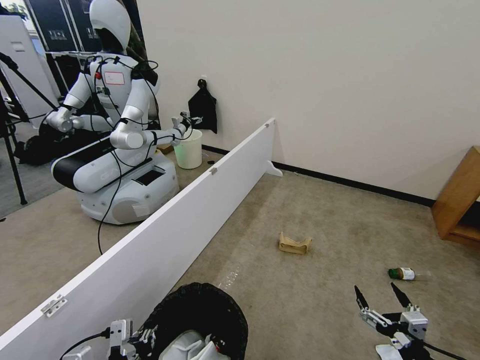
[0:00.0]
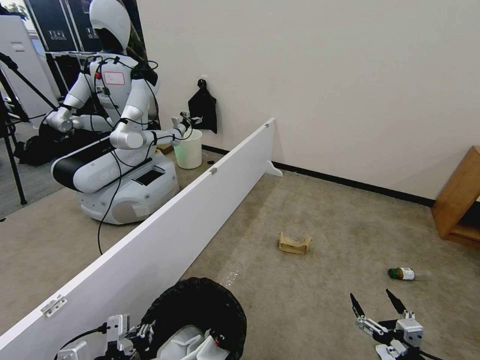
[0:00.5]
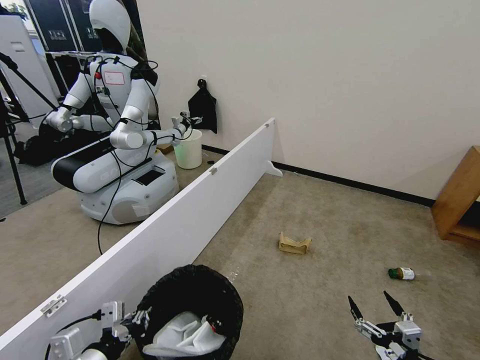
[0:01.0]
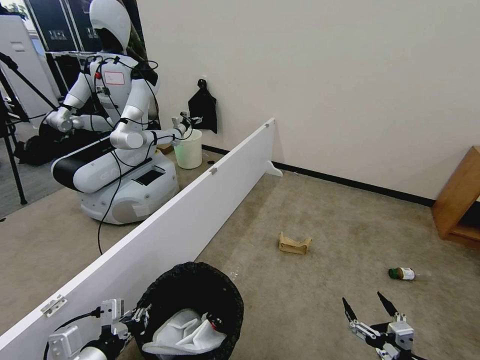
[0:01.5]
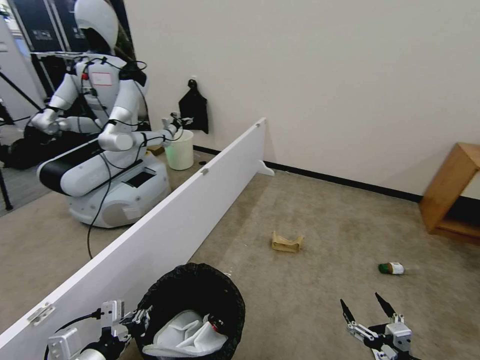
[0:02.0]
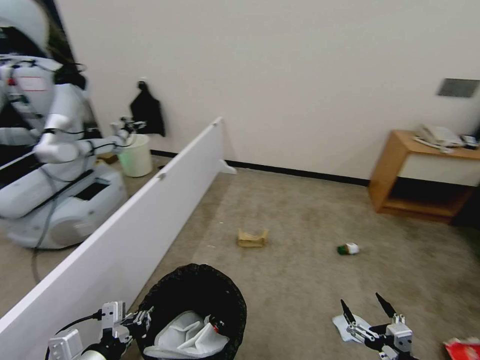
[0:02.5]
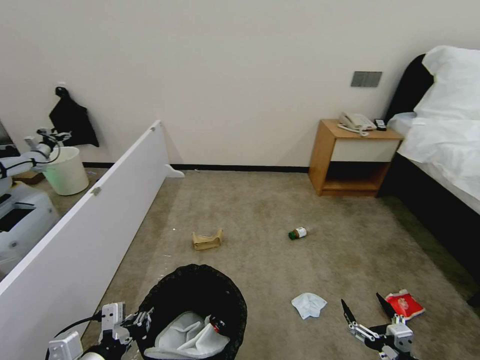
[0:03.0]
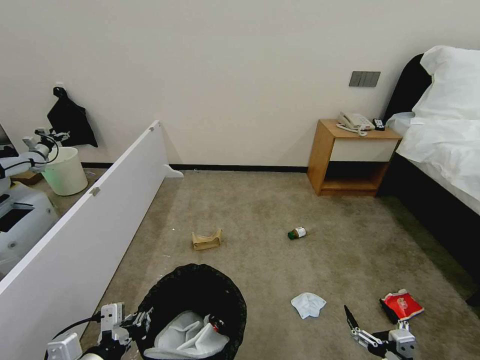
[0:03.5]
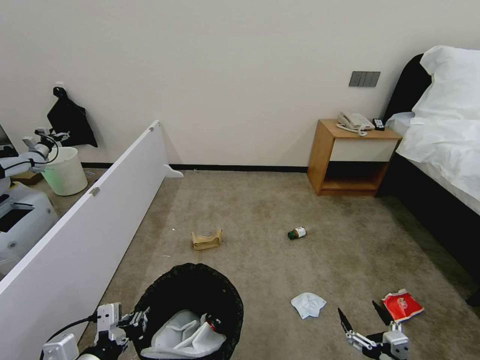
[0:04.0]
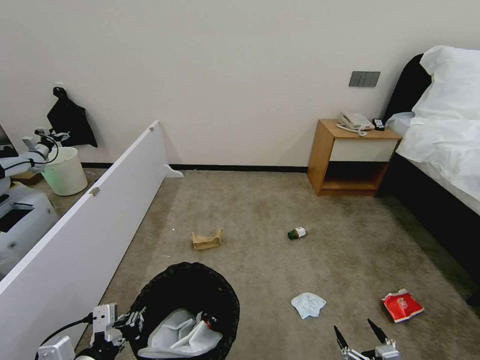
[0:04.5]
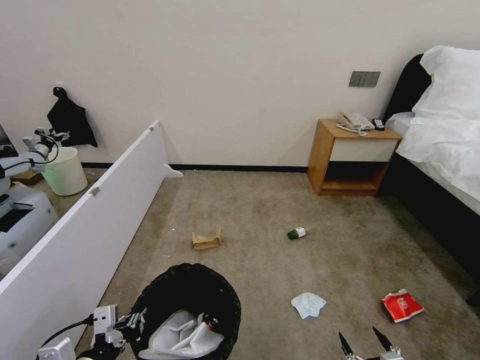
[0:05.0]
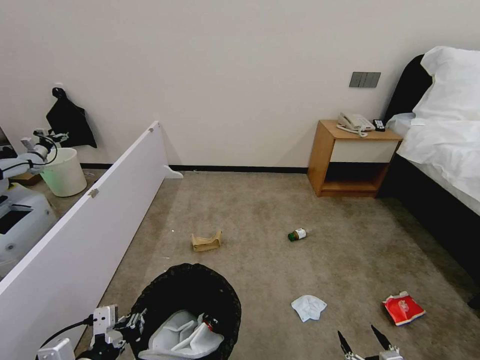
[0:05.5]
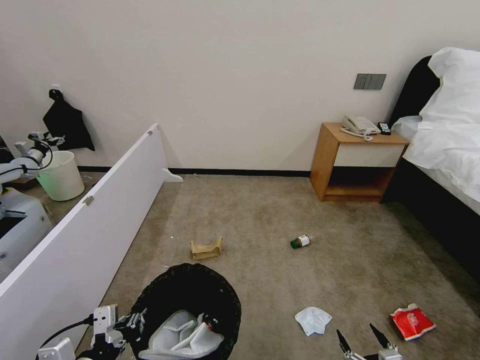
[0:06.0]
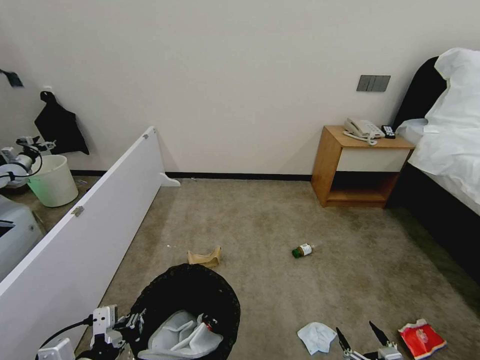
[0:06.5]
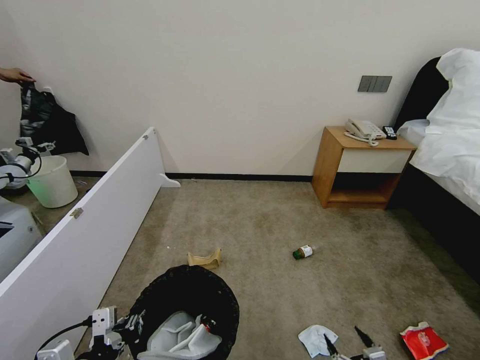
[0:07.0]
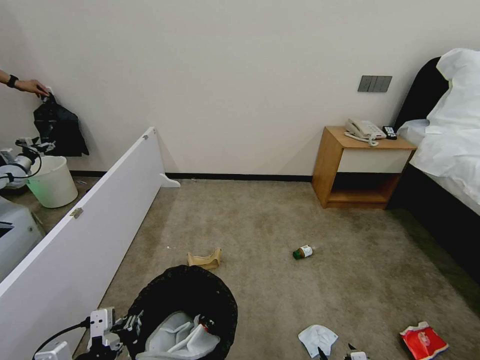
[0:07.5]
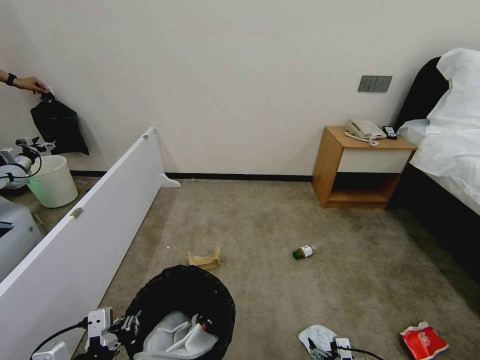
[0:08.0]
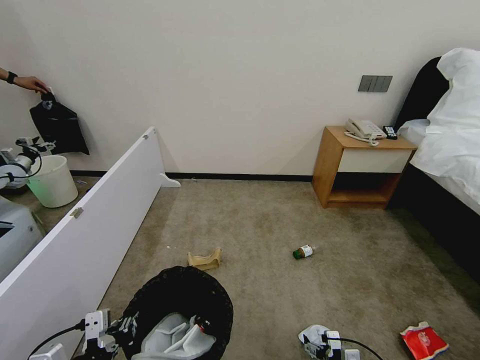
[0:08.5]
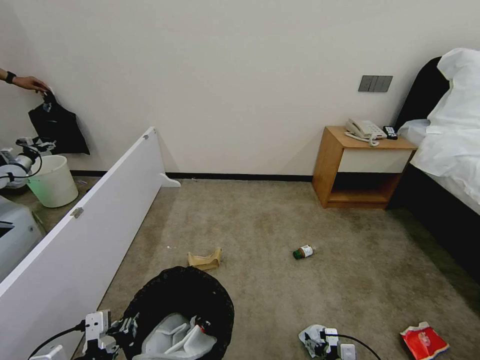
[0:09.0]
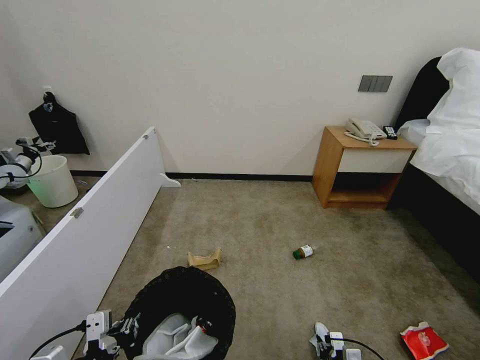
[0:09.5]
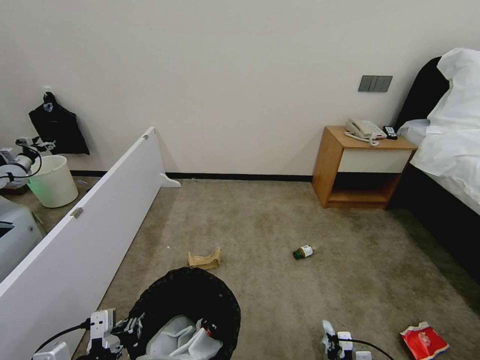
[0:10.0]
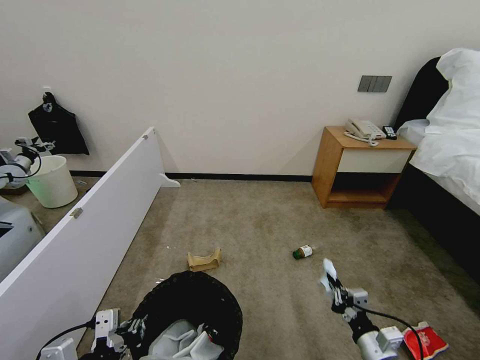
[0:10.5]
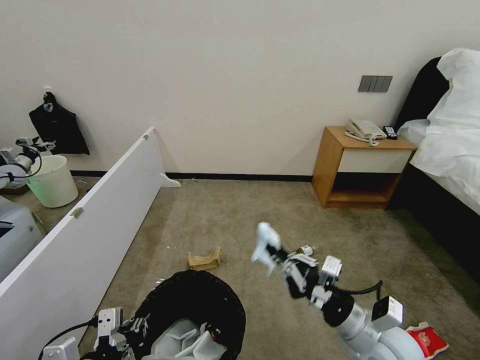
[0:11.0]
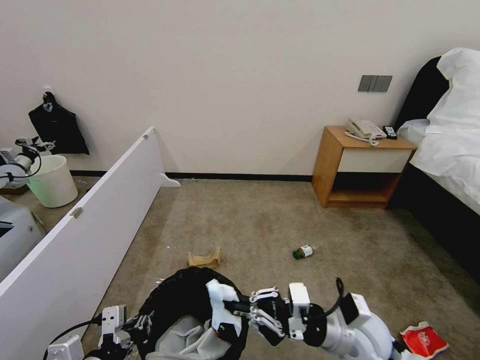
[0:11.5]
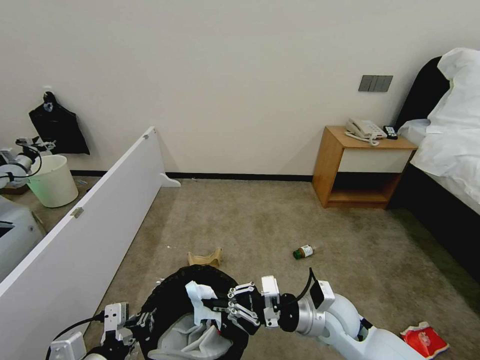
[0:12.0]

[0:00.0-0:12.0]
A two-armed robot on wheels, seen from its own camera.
Task of the whole recording: Pick up the trash bin, then pick up the garbage from the floor and place it into the trash bin.
0:04.0 to 0:06.0: There are only small adjustments of the grippers.
0:06.0 to 0:08.0: The right gripper moves forward, downward and to the left, about 10 cm.
0:08.0 to 0:10.0: The right gripper closes.
0:10.0 to 0:12.0: The right gripper is displaced upward, to the left and forward by roughly 30 cm.

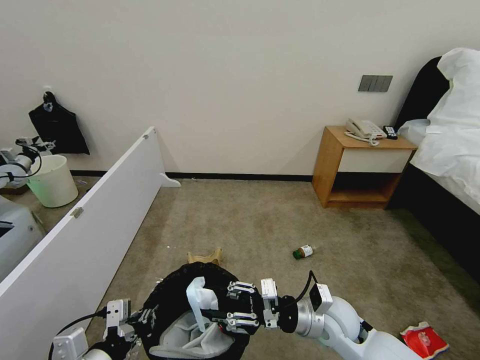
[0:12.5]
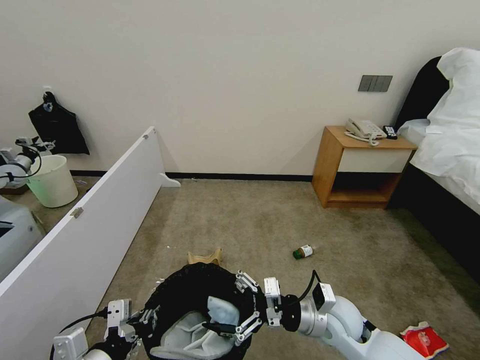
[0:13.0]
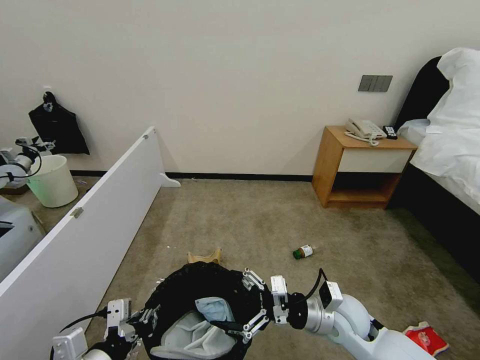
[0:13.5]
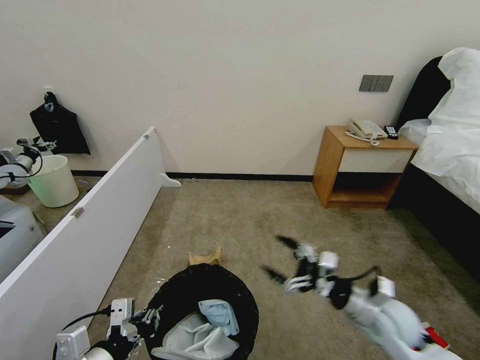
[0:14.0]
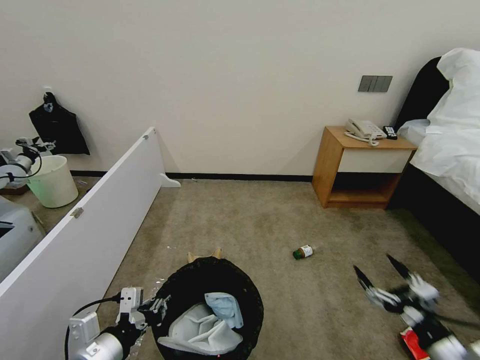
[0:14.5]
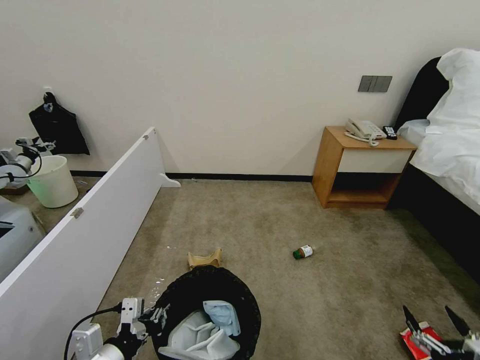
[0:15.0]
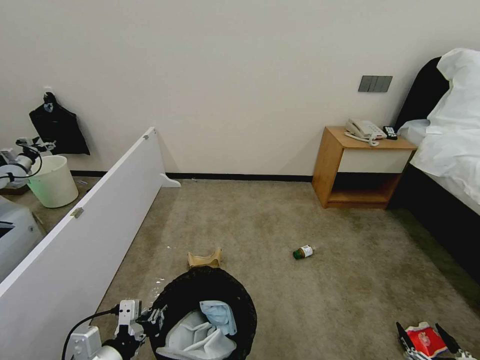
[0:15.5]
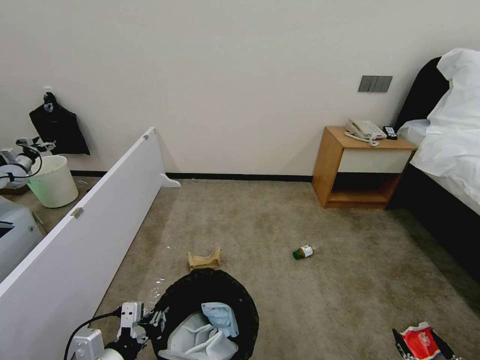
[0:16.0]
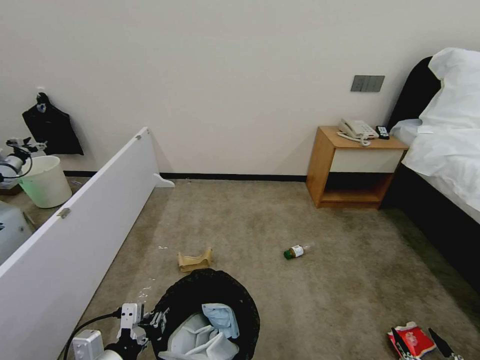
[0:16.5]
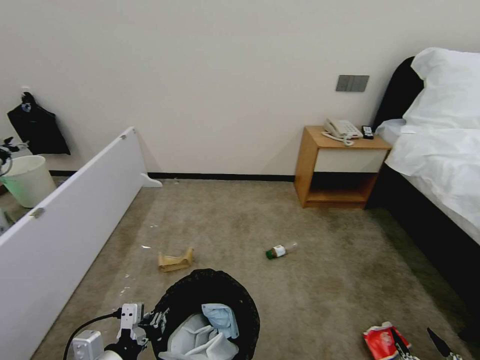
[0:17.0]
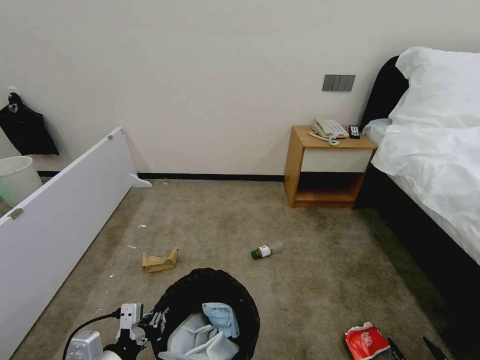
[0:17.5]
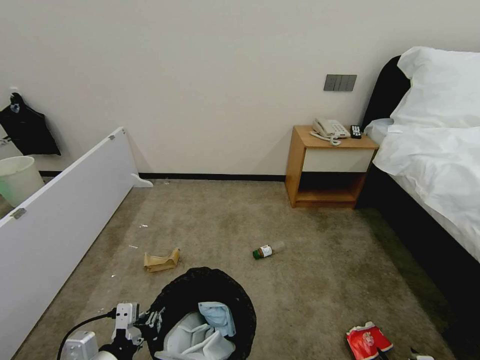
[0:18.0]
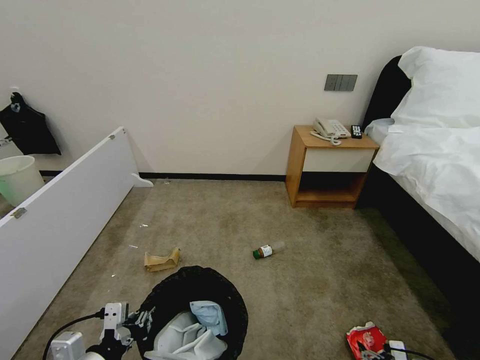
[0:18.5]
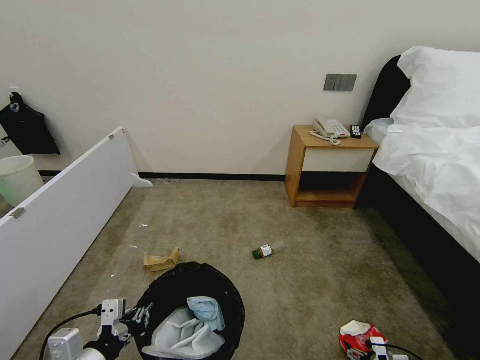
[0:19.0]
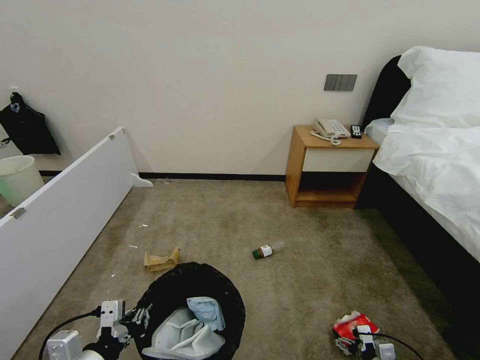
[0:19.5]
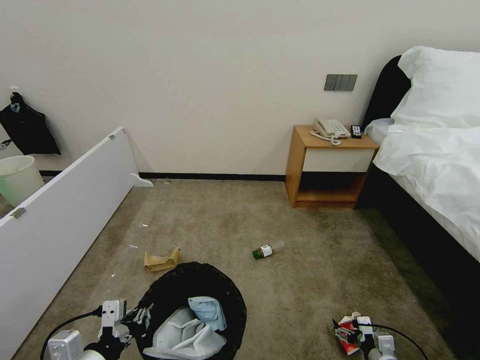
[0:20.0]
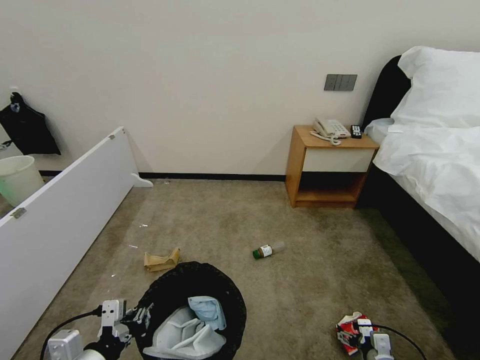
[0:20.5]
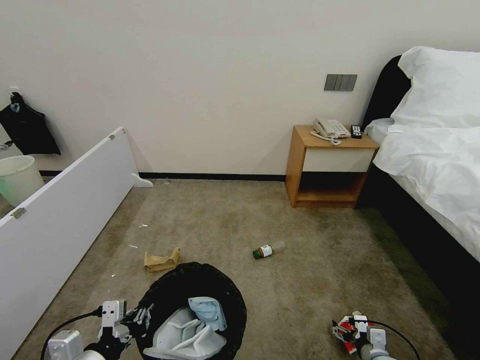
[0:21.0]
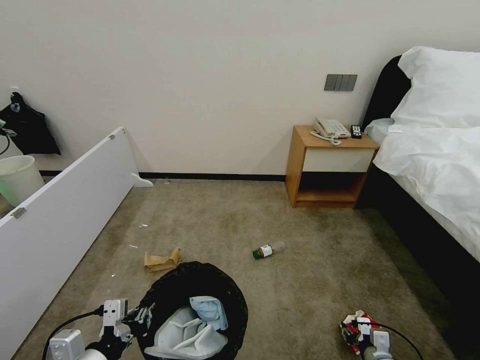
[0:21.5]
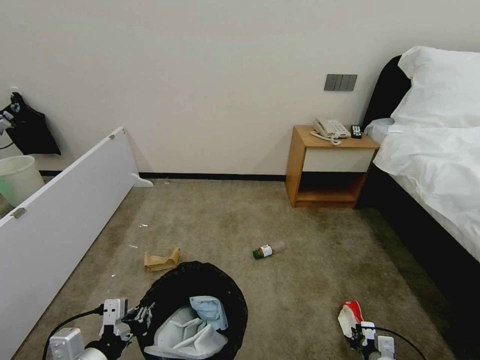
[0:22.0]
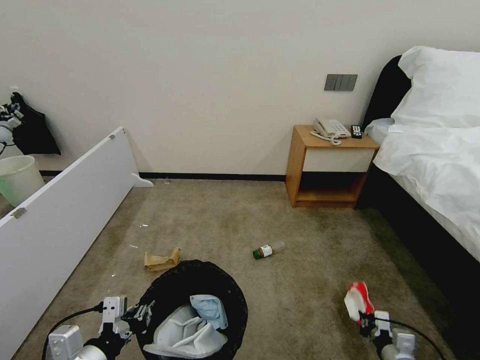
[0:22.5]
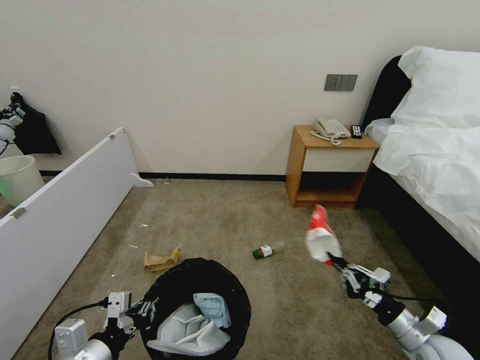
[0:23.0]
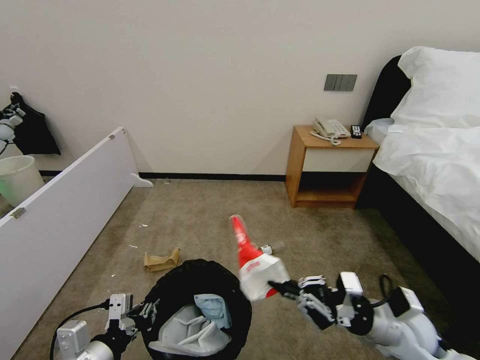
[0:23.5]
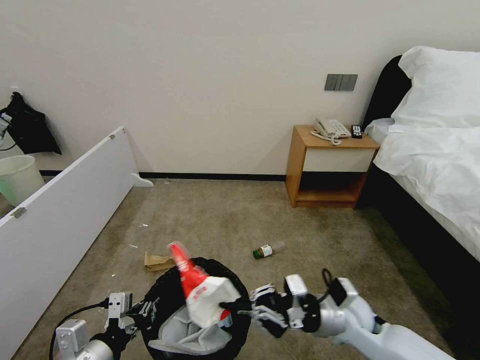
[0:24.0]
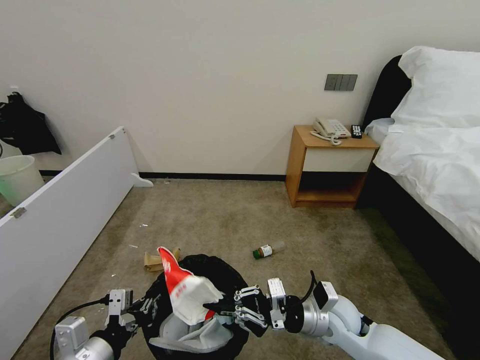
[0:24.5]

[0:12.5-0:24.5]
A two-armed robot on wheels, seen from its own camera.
Task of the whole recording: Pick up the trash bin, then pick up the garbage from the floor and place it into the trash bin.
0:12.5 to 0:14.5: The right gripper moves to the right and backward, roughly 25 cm, and opens its fingers.
0:14.5 to 0:16.5: The right gripper moves backward and downward, roughly 15 cm.
0:16.5 to 0:18.5: The right gripper is displaced forward and downward by some 15 cm.
0:18.5 to 0:20.5: The right gripper travels forward and to the left by about 10 cm.
0:20.5 to 0:22.5: The right gripper closes.
0:22.5 to 0:24.5: The right gripper shifts roughly 25 cm to the left, upward and forward.

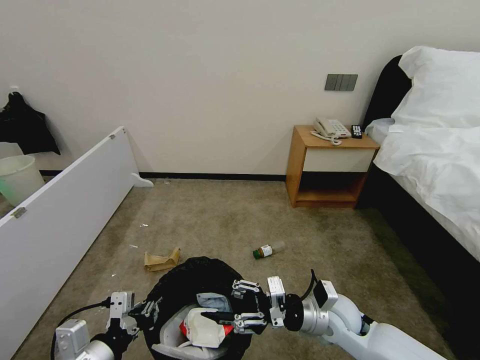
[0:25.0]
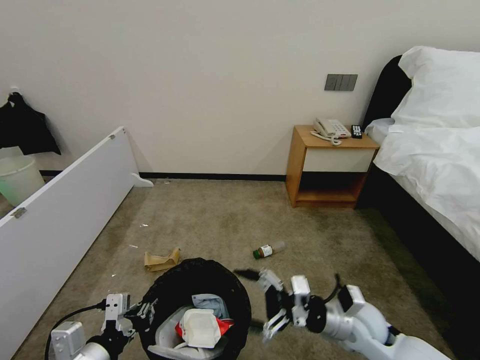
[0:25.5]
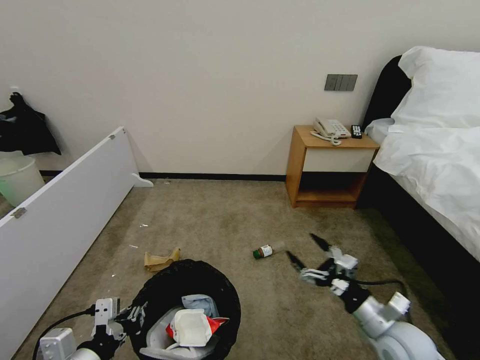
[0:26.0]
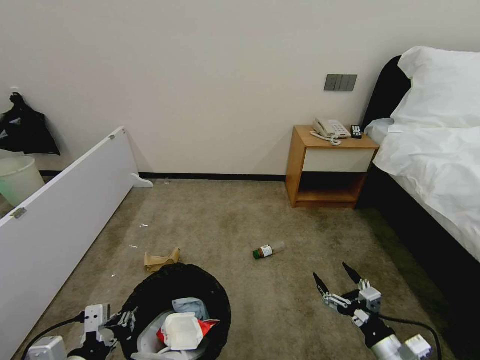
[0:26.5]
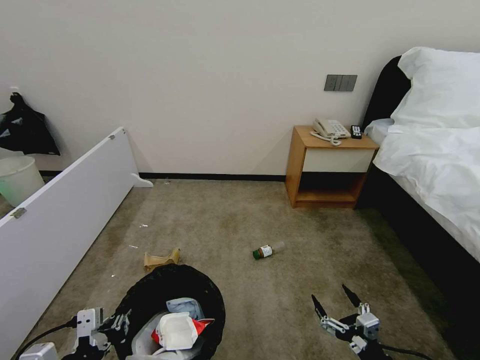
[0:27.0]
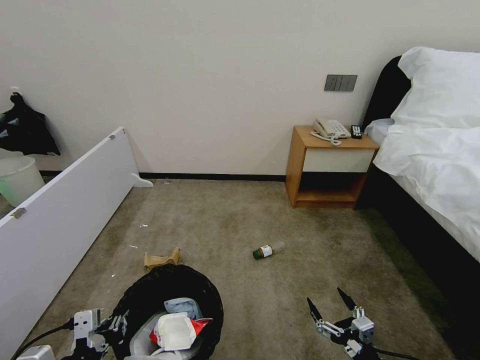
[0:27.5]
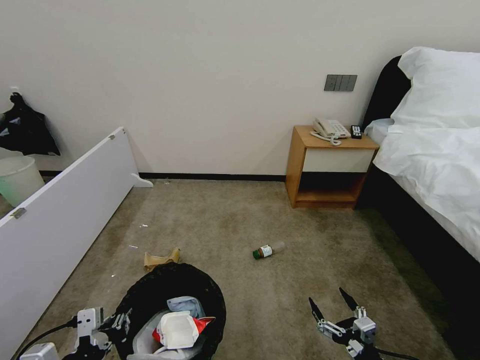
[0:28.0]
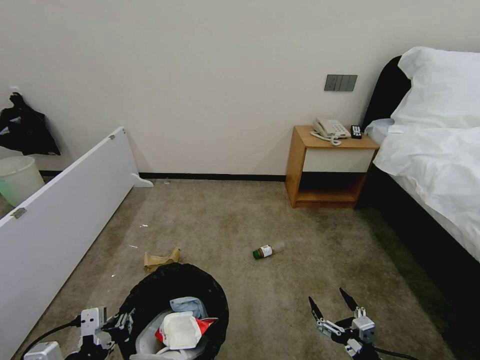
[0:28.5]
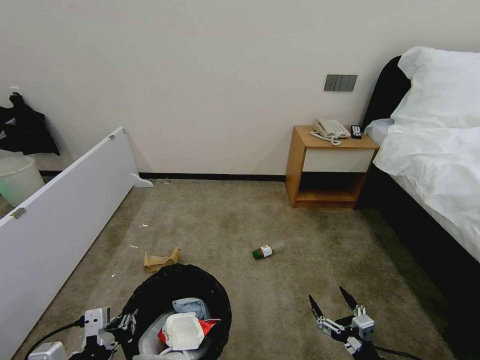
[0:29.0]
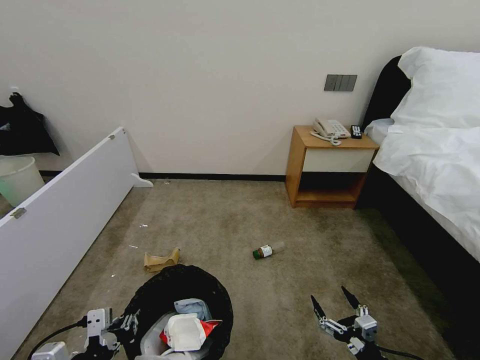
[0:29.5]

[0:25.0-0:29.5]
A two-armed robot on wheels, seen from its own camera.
Task of the whole recording: Pick up the trash bin, then pick up the garbage from the floor and place it into the trash bin.
0:25.0 to 0:27.0: The right gripper travels backward, to the right and downward by roughly 20 cm, and opens up.
0:27.0 to 0:29.5: The grippers move only a little.
